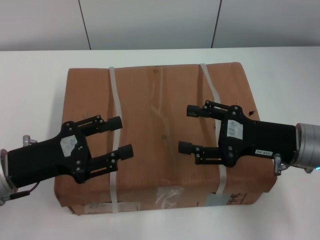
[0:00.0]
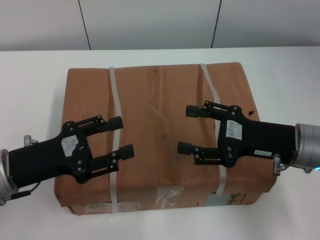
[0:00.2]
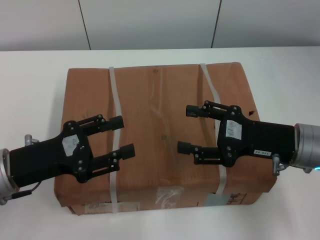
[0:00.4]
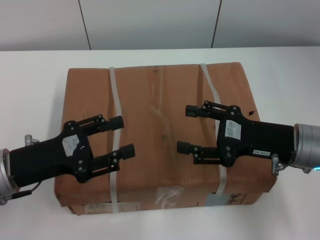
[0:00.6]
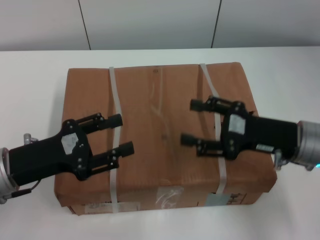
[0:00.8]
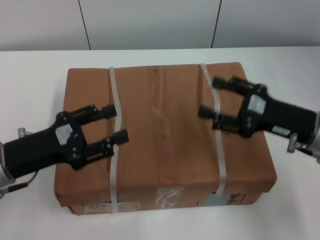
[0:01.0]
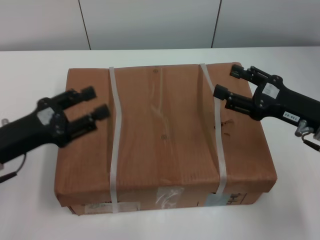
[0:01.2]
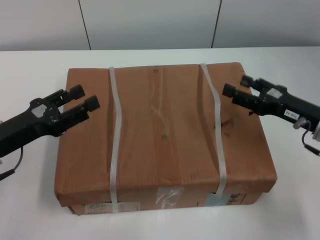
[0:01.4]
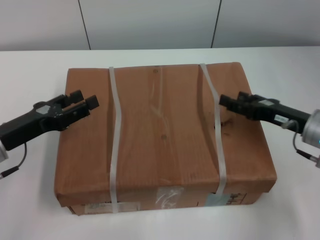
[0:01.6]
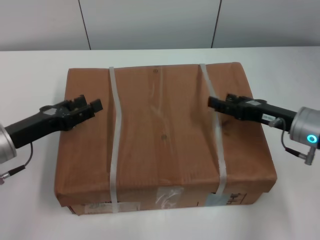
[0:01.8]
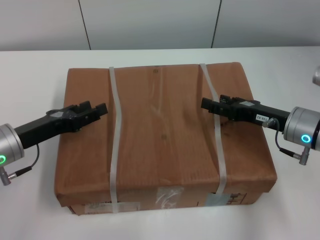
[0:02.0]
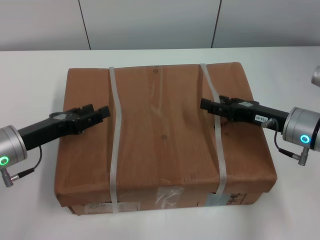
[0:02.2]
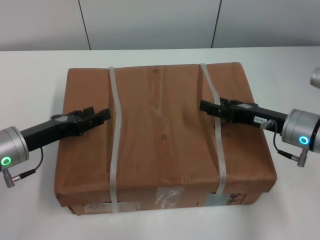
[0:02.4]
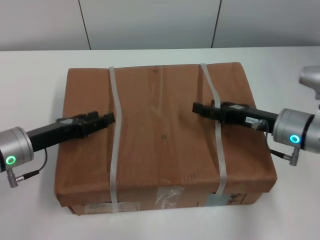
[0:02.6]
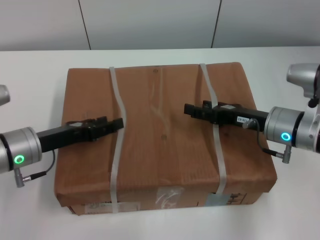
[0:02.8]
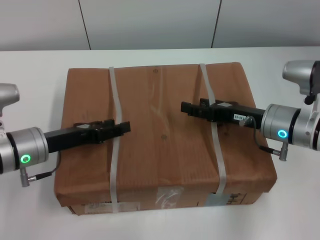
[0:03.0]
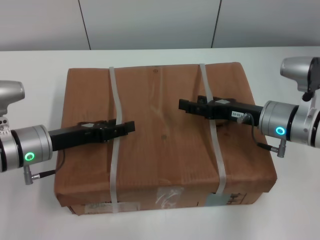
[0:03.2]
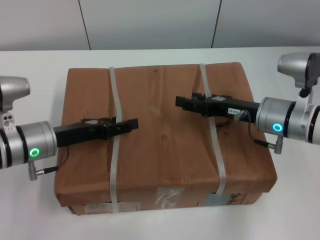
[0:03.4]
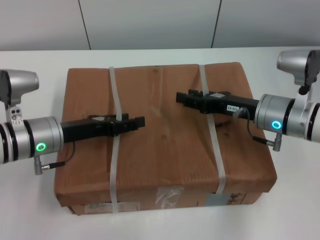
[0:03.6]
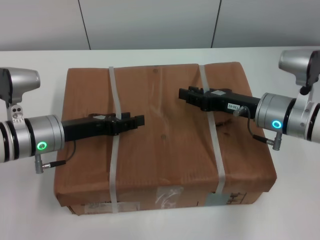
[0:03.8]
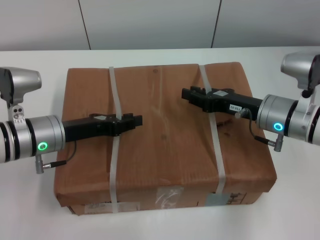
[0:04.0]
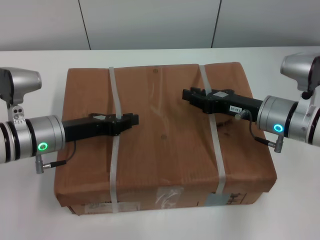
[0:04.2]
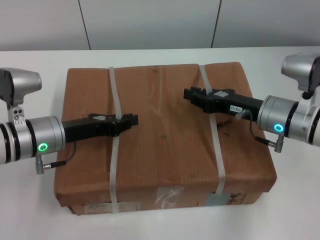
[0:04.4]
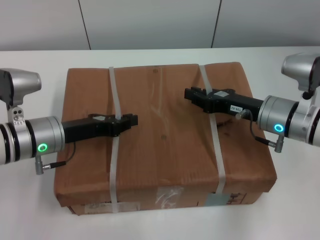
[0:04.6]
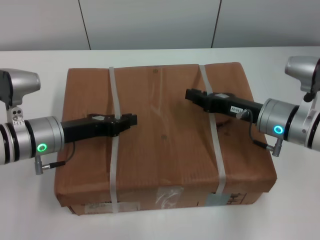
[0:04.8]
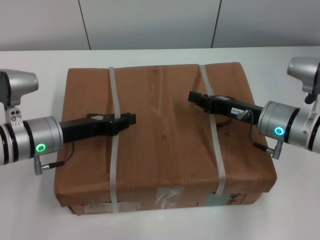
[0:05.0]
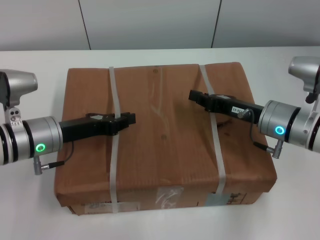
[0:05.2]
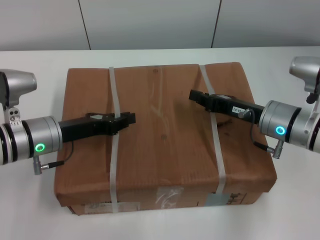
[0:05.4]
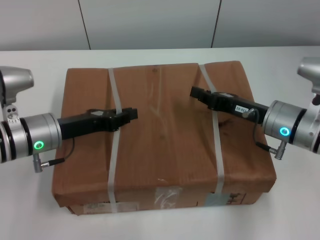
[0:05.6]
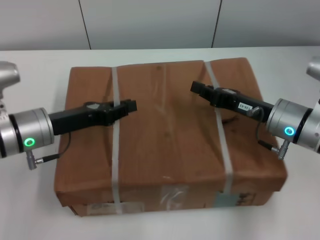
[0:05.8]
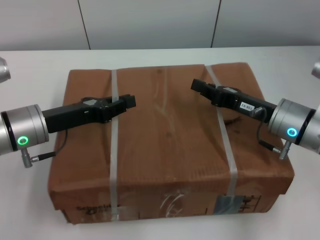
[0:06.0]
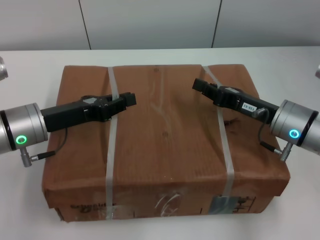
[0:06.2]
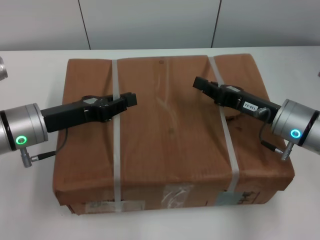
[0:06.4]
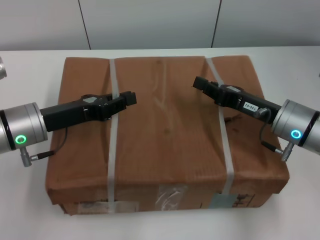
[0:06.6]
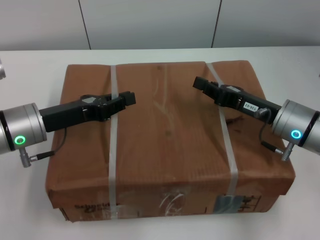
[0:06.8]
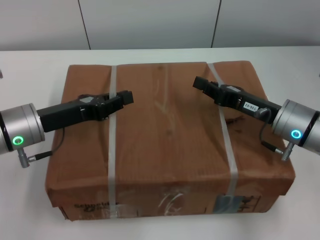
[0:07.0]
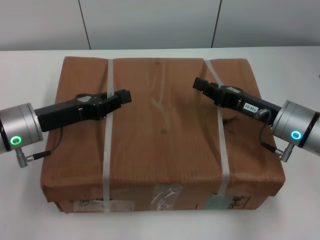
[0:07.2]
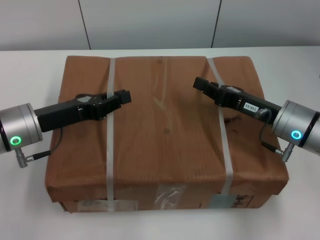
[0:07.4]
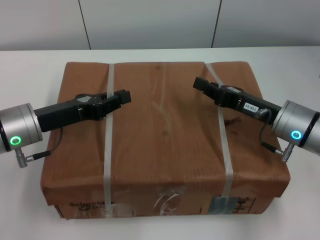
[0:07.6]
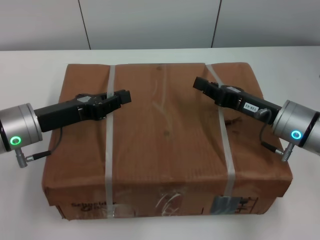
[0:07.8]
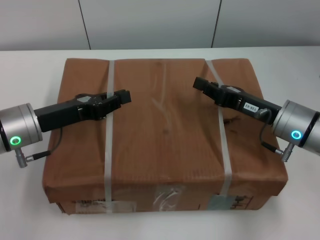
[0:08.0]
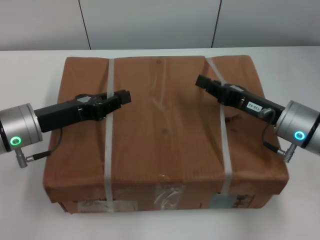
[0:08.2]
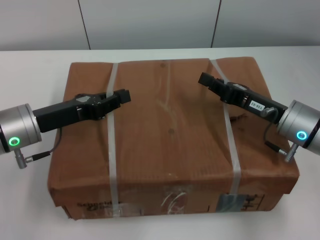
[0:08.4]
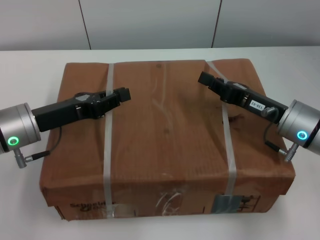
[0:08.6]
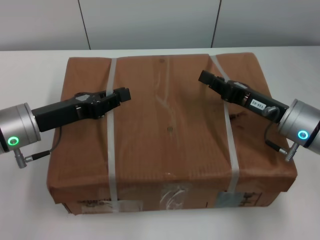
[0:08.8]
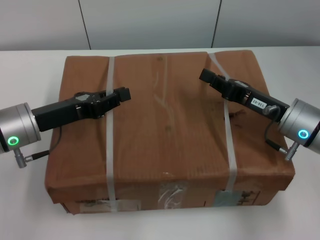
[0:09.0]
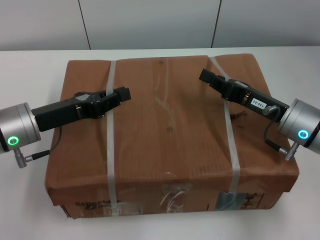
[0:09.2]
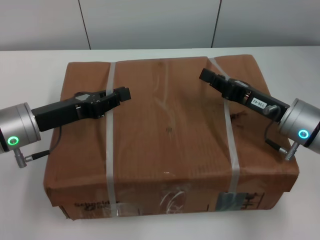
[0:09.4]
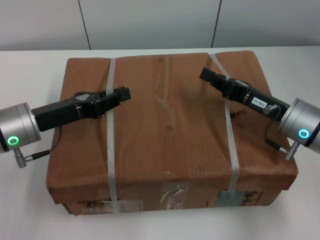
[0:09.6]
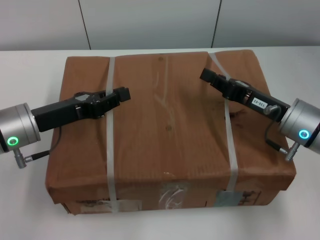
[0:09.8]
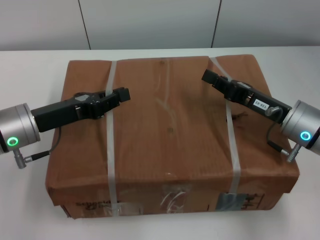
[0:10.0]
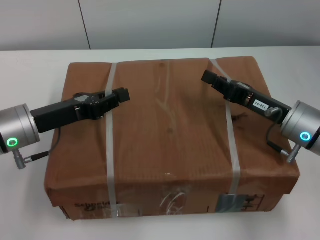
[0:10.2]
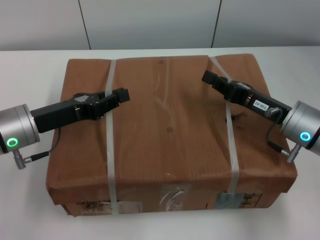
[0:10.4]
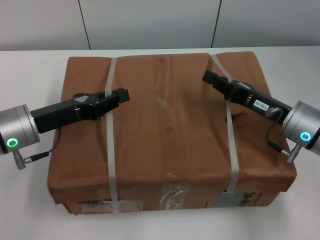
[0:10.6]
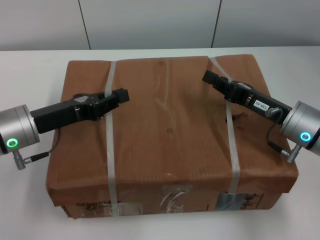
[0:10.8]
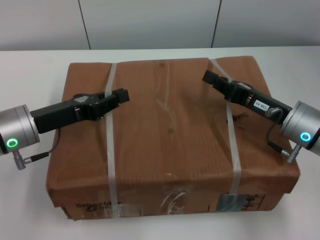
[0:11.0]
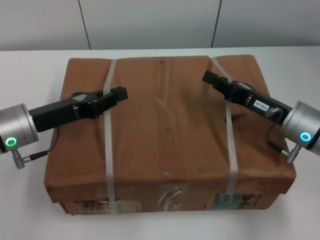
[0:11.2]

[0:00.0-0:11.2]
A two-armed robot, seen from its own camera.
Task of the whole recording: pick up the box from the table with both arms.
Step, 0:00.0 to 0:05.0: Grasp the bandage with left gripper.
Step, 0:00.0 to 0:05.0: Grasp the bandage with right gripper.
Step, 0:05.2 to 0:06.4: Lift the box with left gripper.
Step, 0:05.2 to 0:06.4: Lift the box with right gripper.
0:00.0 to 0:01.6: The right gripper ends up approximately 5 cm from where it was.
0:01.6 to 0:03.2: The left gripper moves about 5 cm; the right gripper is displaced to the left by about 5 cm.
0:03.2 to 0:04.8: The right gripper closes its fingers. The left gripper closes up.
0:06.4 to 0:08.0: Both grippers stay put.
0:08.0 to 0:09.6: Both grippers stay put.
0:09.6 to 0:11.2: The two grippers keep their place.
